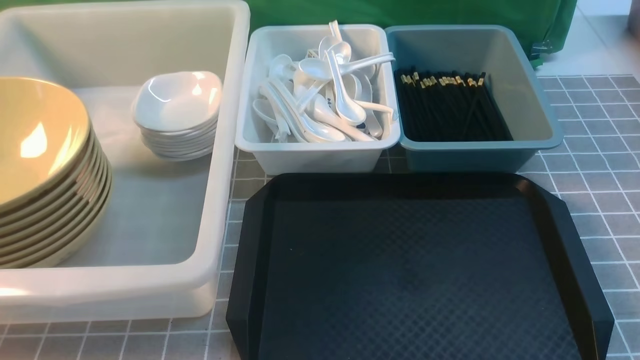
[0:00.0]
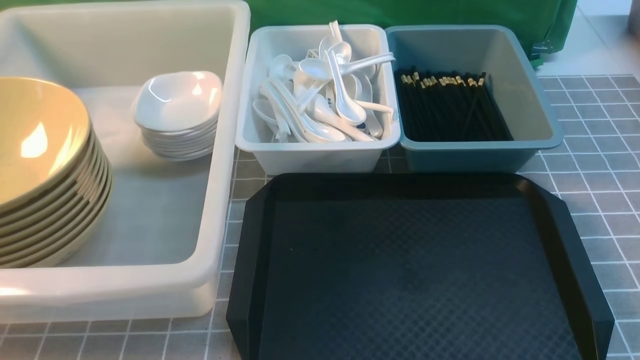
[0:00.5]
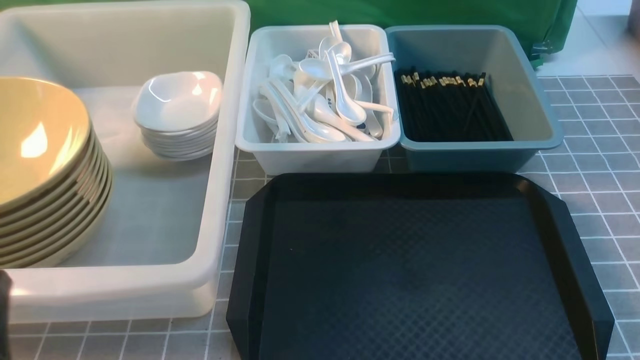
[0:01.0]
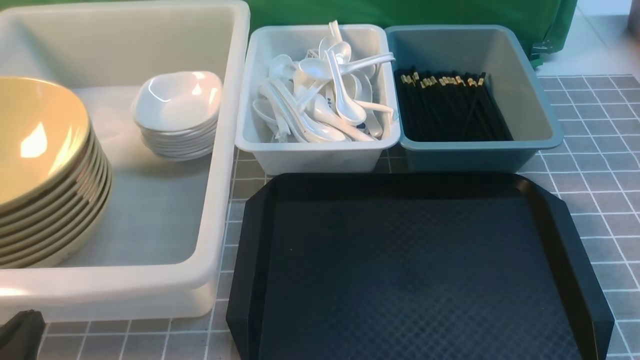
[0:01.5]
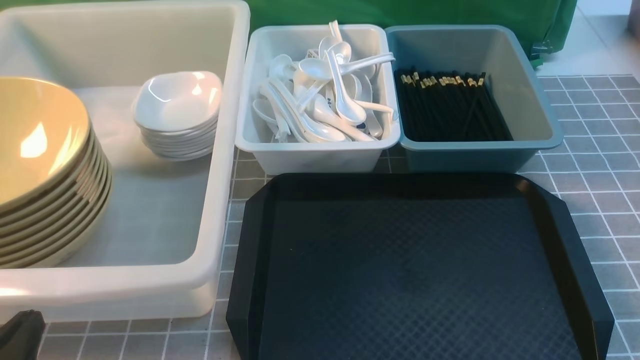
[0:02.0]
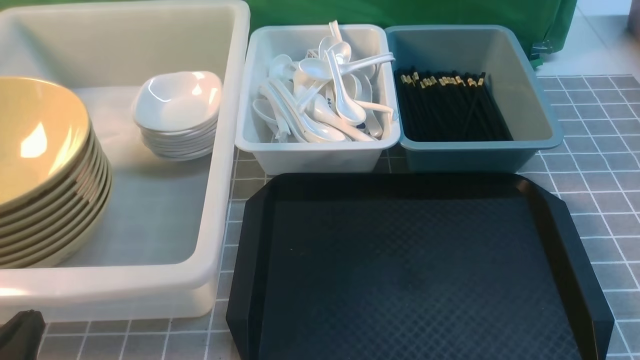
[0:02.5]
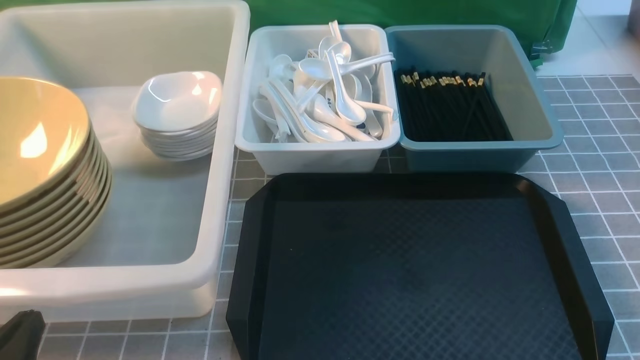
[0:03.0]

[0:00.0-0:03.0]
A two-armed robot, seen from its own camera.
Task of the whole recording: on grey table put chopsticks spoon bowls plates into blue grey white boxes.
0:00.0 to 0:01.5: The left gripper shifts some 15 cm downward and forward.
0:01.5 to 0:03.0: Neither gripper changes place.

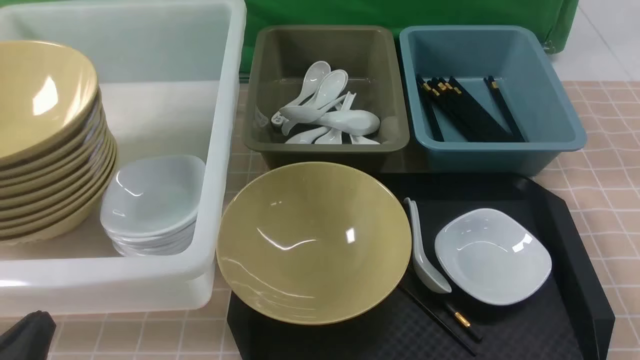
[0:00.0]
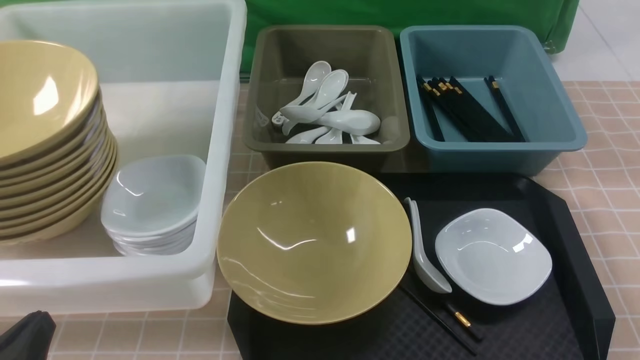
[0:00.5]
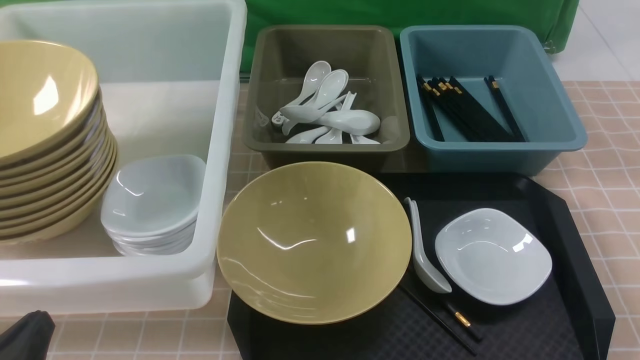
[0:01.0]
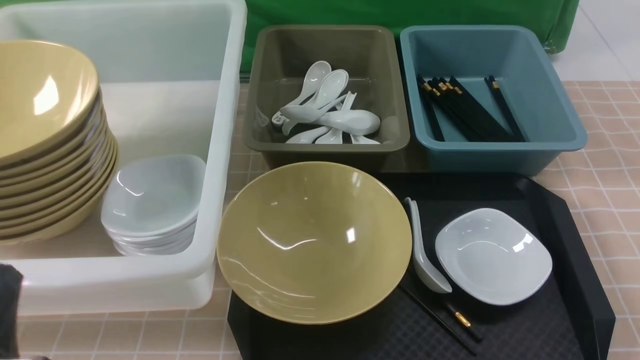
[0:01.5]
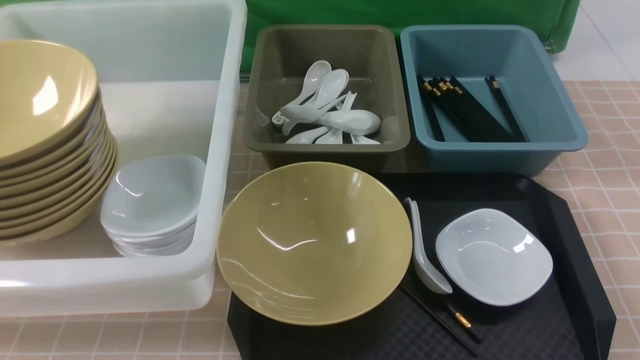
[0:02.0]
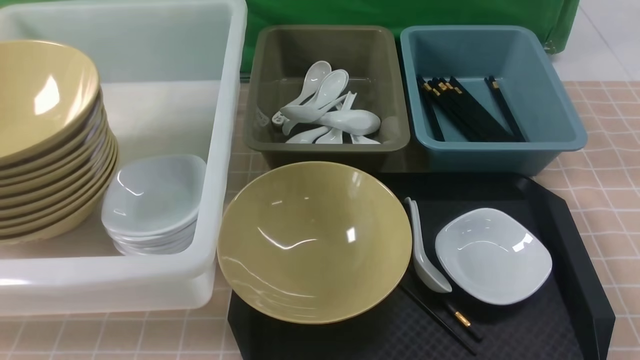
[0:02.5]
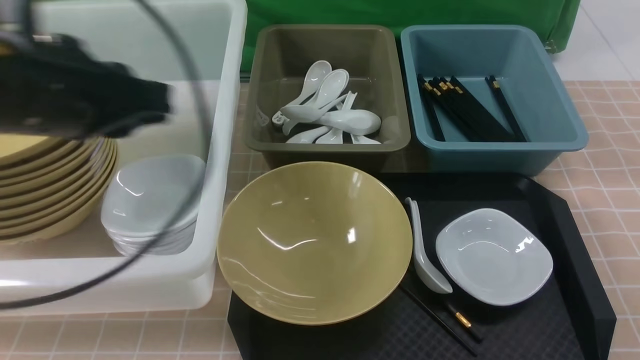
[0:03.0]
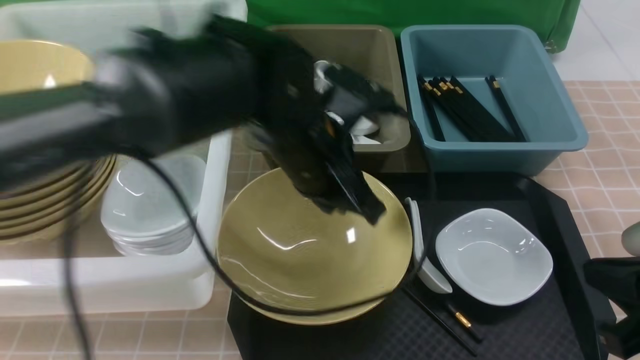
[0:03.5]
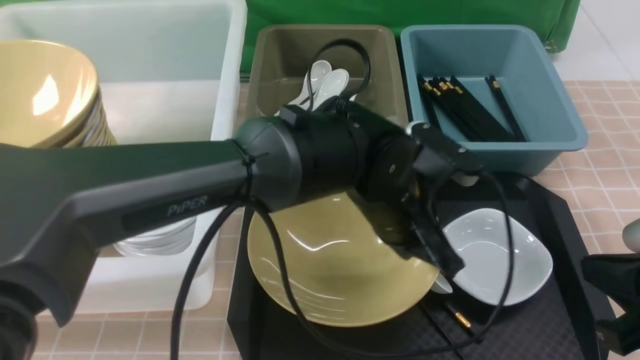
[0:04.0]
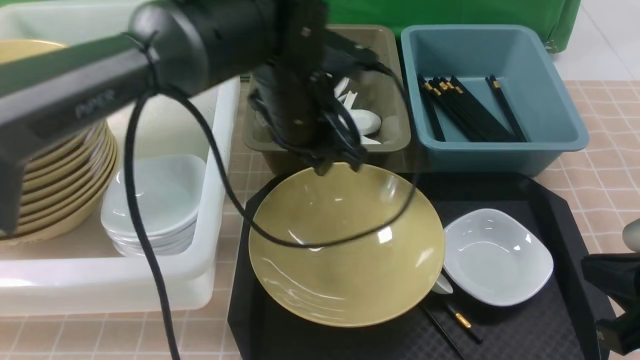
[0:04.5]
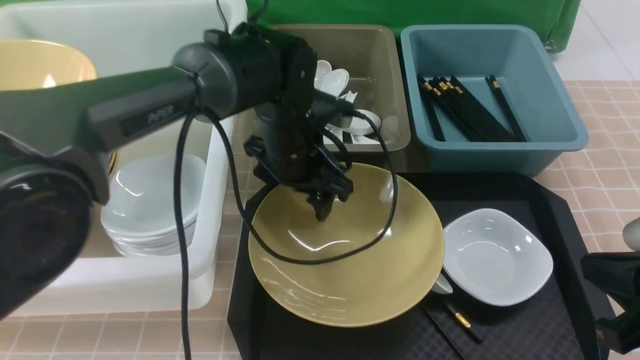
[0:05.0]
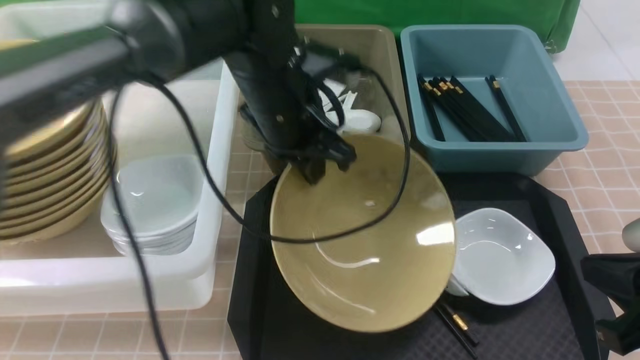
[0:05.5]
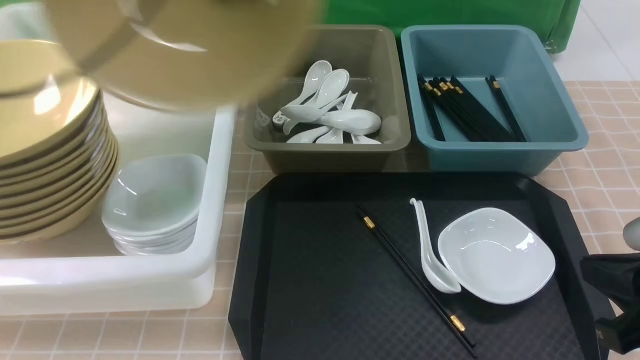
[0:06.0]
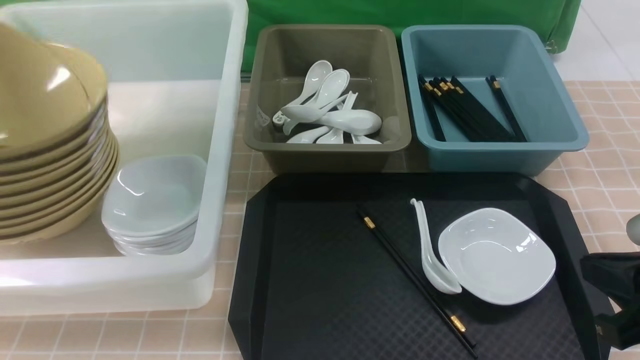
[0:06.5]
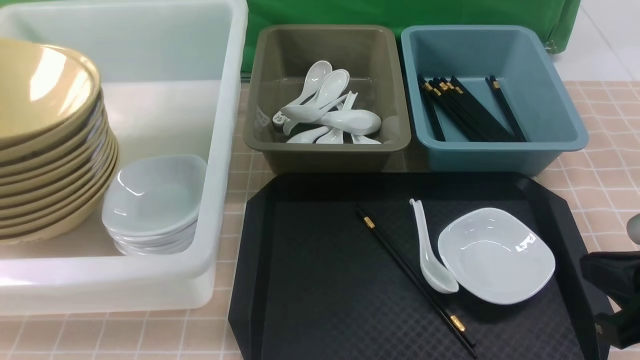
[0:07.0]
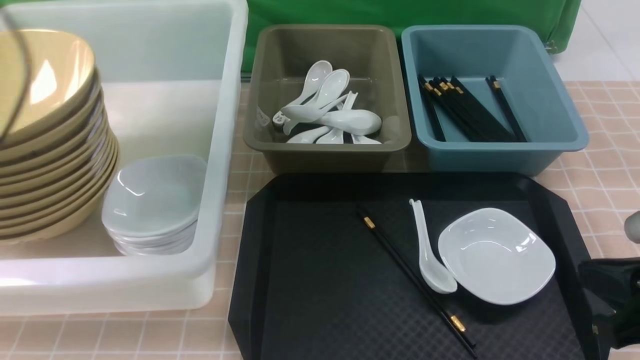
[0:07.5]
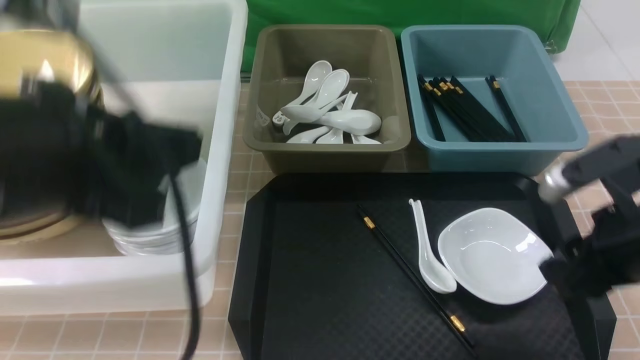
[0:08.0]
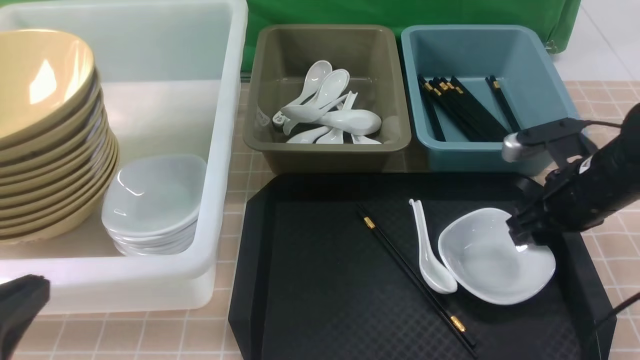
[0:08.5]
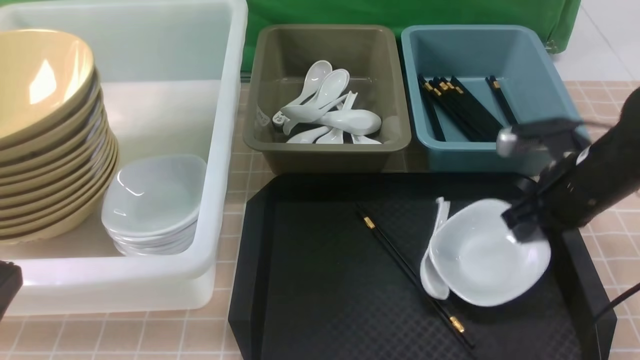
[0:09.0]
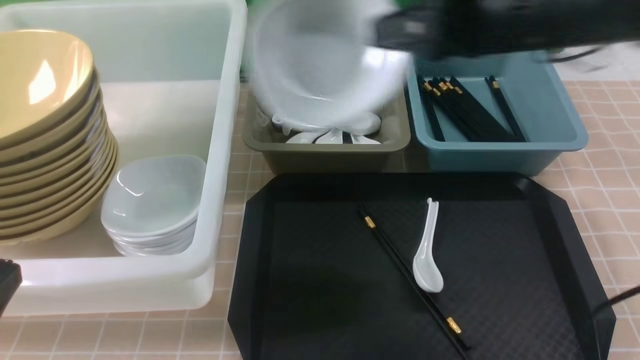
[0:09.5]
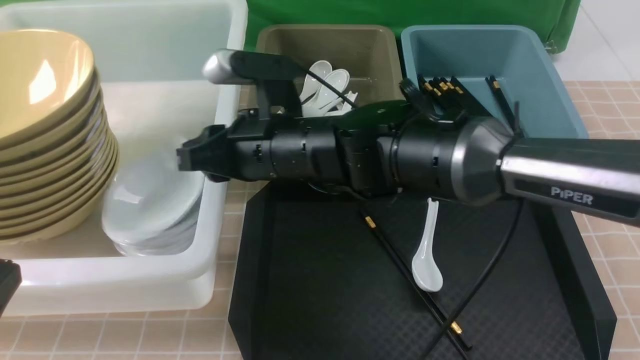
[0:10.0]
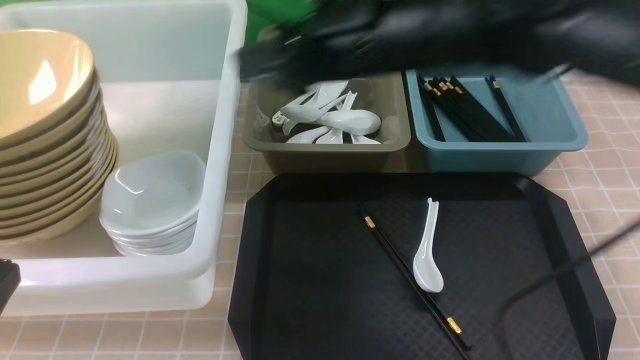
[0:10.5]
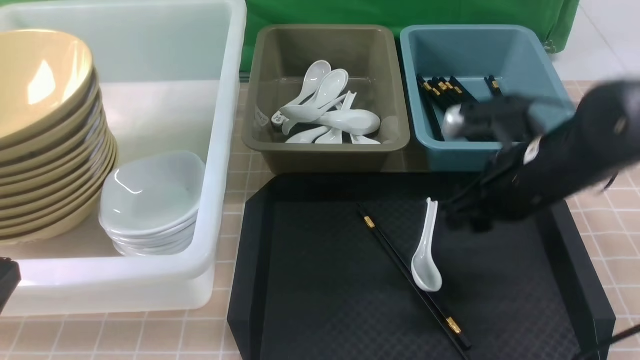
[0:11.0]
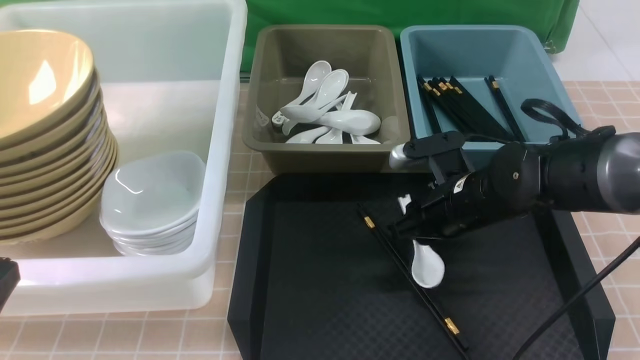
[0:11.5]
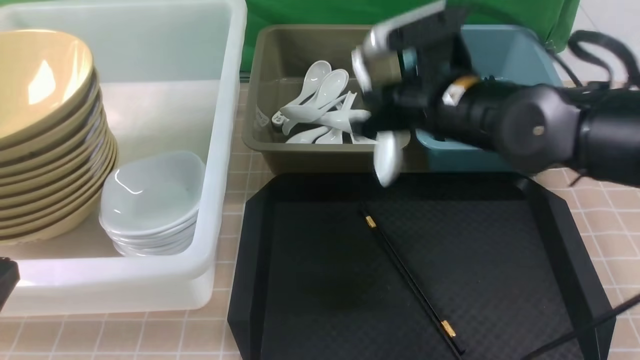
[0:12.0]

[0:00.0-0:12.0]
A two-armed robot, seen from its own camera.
Task of the whole recording: on brown table put chopsticks spoon bowls plates into blue grey white boxes.
Step, 0:00.0 to 0:05.0: use the left arm to grab the yellow noodle bowl on the left.
Step, 0:05.5 to 0:07.0: use the left arm to put the noodle bowl into the large storage box on the left.
Step, 0:07.5 to 0:08.5: use the right arm to grab the plate.
Step, 0:09.0 to 0:10.0: use the right arm to put the plate into the large storage box on the left.
Step, 0:10.5 to 0:11.5: use the right arm to grab the soup spoon in the middle.
0:00.0 to 0:02.0: The grippers both shift upward by about 10 cm.
0:02.0 to 0:04.0: The right gripper goes roughly 10 cm forward, and closes; the left gripper travels to the right and forward by approximately 40 cm.
0:04.0 to 0:06.0: The left gripper moves to the left and upward, approximately 40 cm, and opens, then closes once more.
0:06.0 to 0:08.0: The left gripper moves backward and downward, approximately 15 cm, moves roughly 15 cm to the left and comes back, and opens and closes again; the right gripper is displaced forward by some 10 cm, and opens.
0:08.0 to 0:10.0: The left gripper travels downward, backward and to the left by roughly 15 cm; the right gripper is displaced to the left by some 30 cm, and closes, then reopens.
0:10.0 to 0:12.0: The right gripper moves to the right, approximately 15 cm, and closes its fingers.

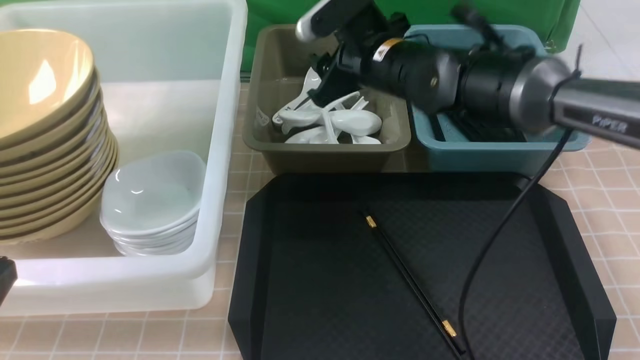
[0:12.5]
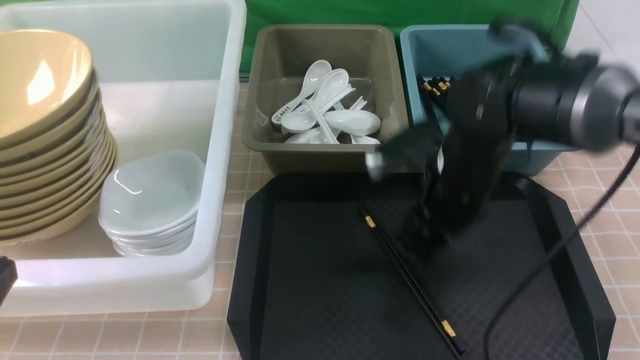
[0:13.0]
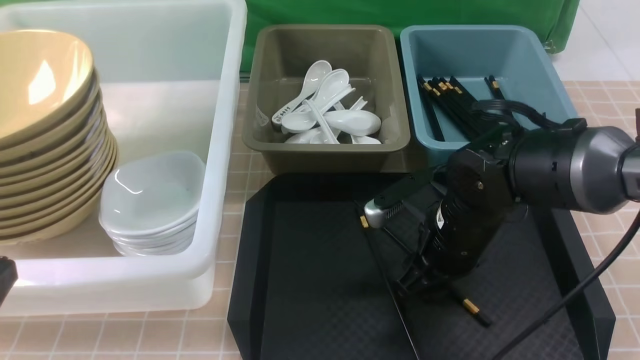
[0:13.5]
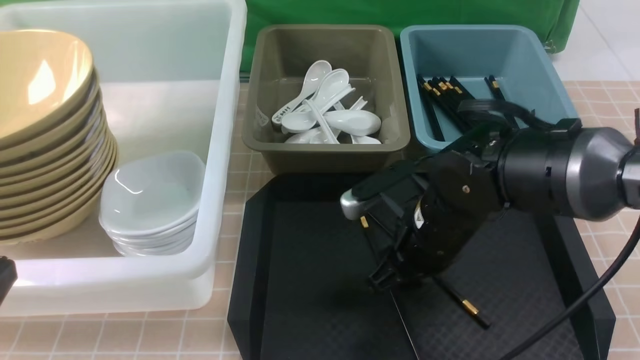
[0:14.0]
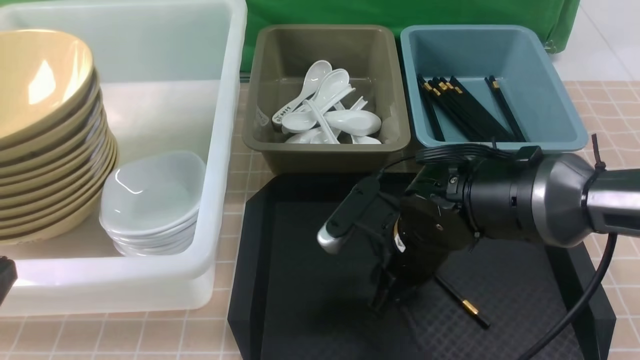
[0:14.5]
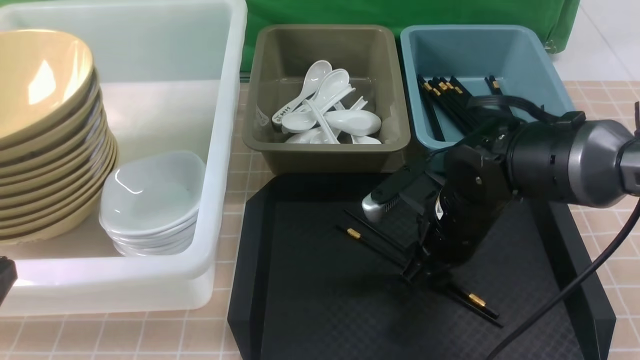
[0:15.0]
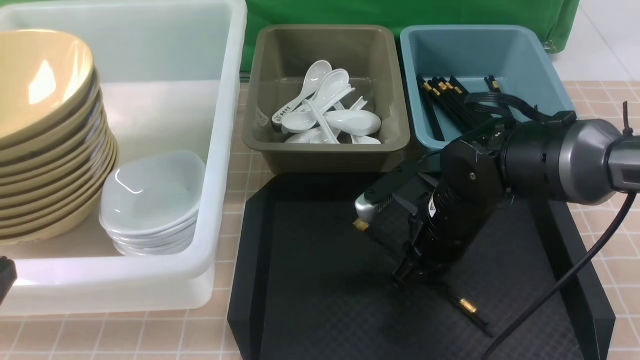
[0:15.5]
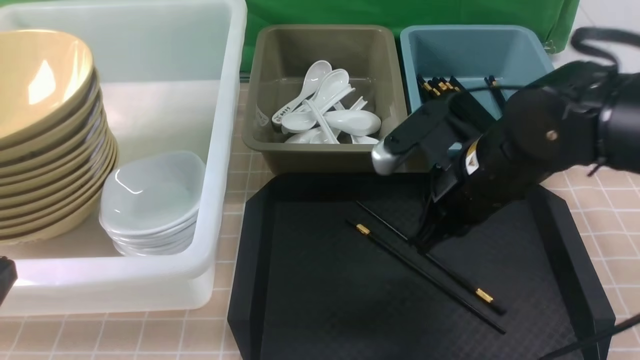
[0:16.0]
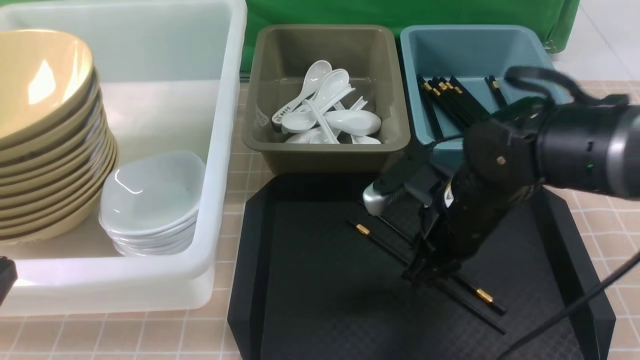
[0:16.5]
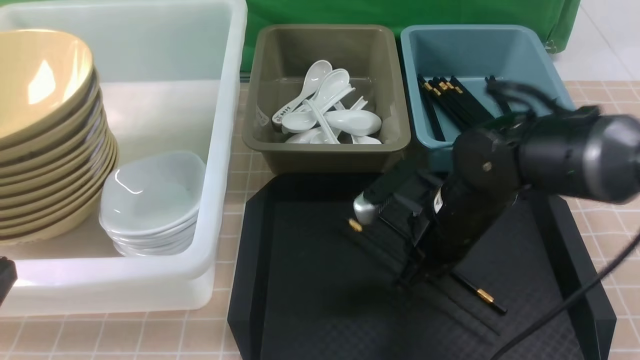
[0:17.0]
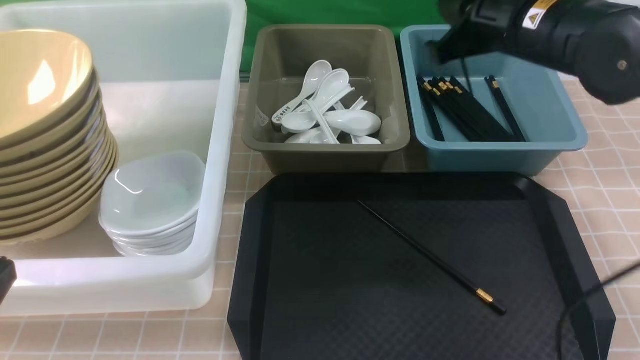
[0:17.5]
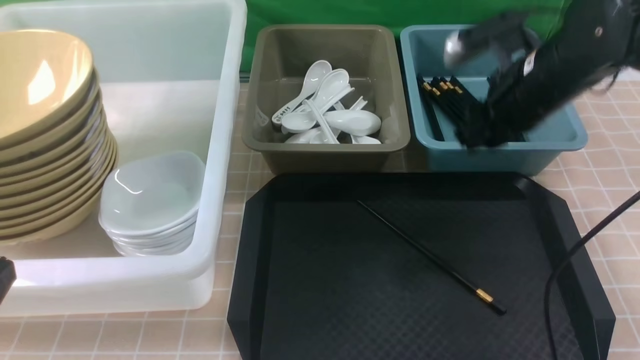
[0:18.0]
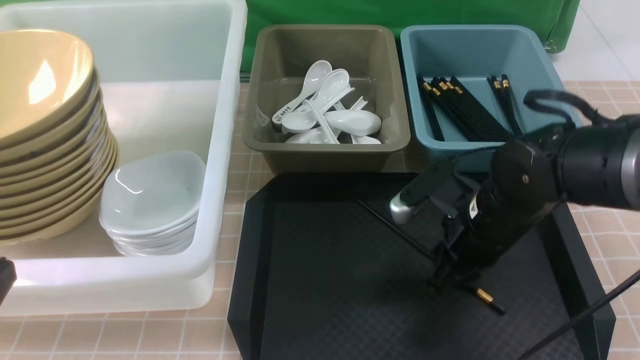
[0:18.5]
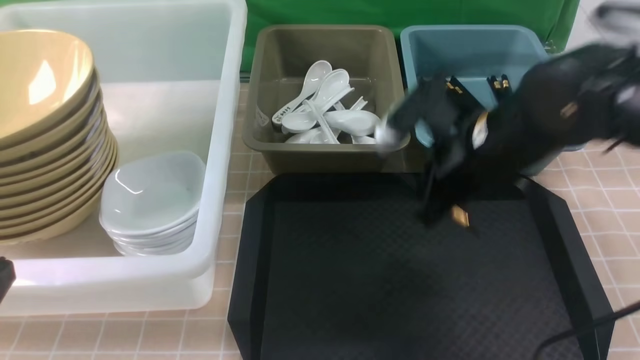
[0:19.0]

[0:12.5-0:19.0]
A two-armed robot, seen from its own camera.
Task of the whole recording: on brown table put chopsticks spoon bowls plates into blue grey white boxes.
Step, 0:13.0 to 0:17.0: use the right arm to grab a chopstick.
Step, 0:17.5 to 0:18.0: use the right arm to put a chopstick into the small storage box on the right.
0:12.5 to 0:14.5: The right gripper is displaced backward and downward by roughly 15 cm.
0:14.5 to 0:17.0: The right gripper changes place by approximately 5 cm, and closes up.
0:17.0 to 0:19.0: The right gripper moves up and down over roughly 15 cm, changing direction 2 times, and opens, then closes again.
